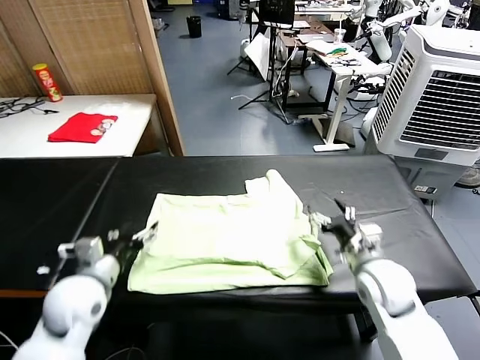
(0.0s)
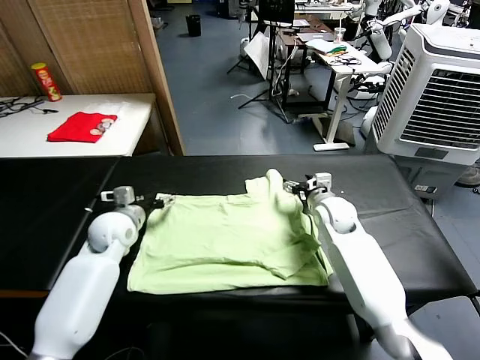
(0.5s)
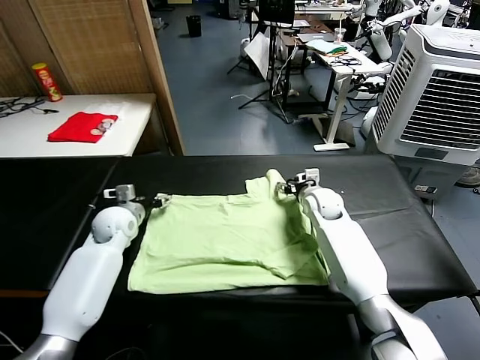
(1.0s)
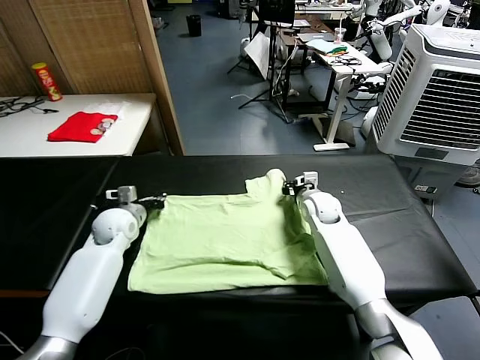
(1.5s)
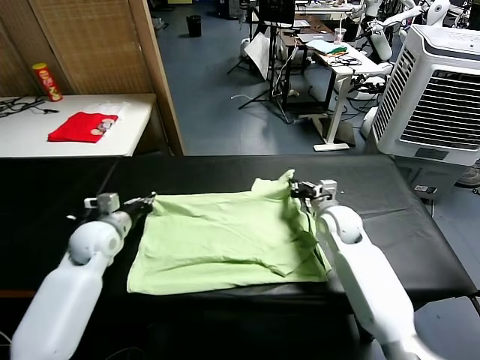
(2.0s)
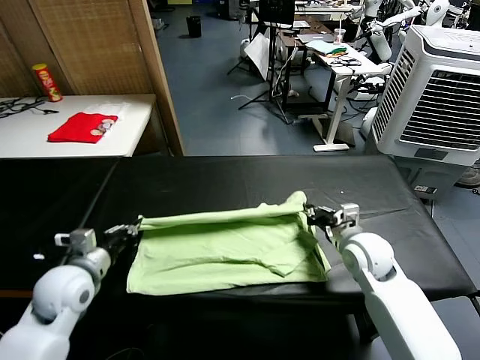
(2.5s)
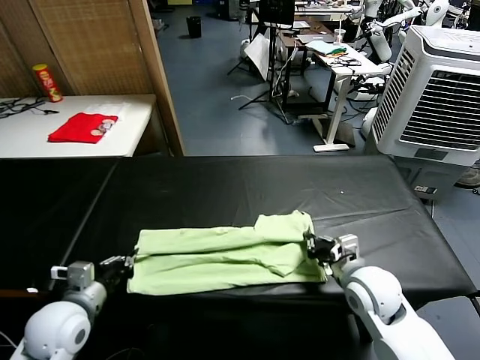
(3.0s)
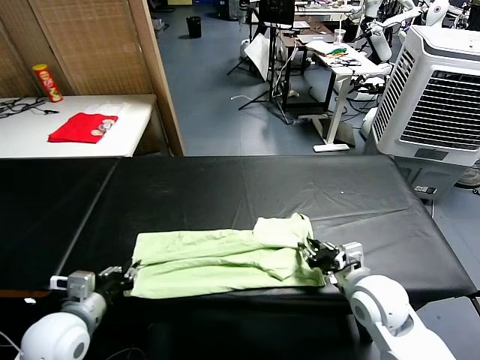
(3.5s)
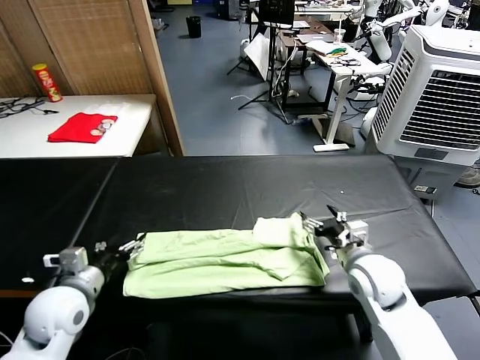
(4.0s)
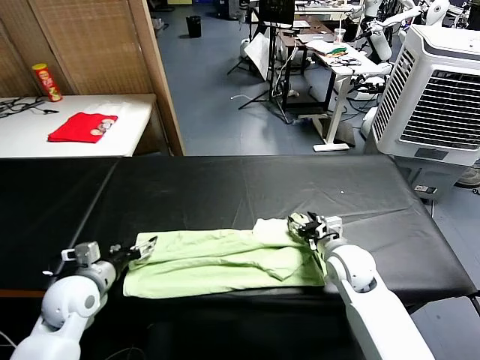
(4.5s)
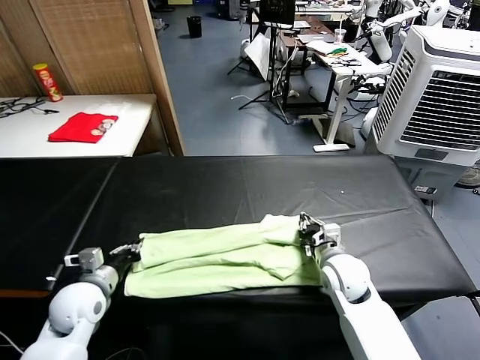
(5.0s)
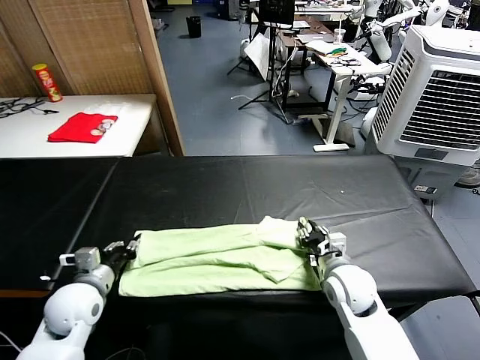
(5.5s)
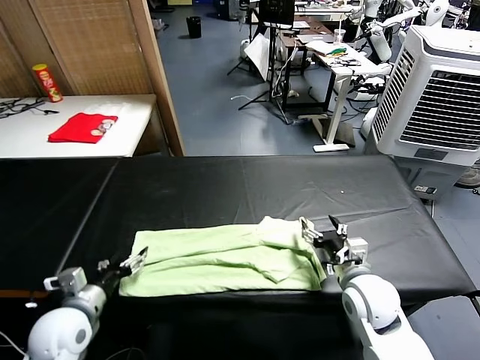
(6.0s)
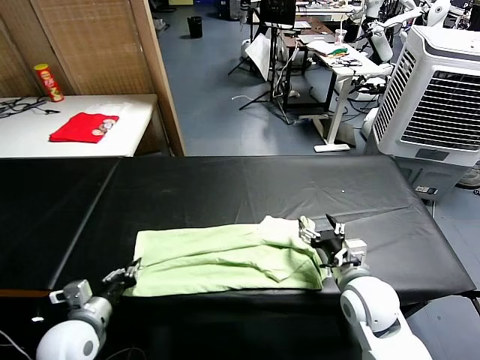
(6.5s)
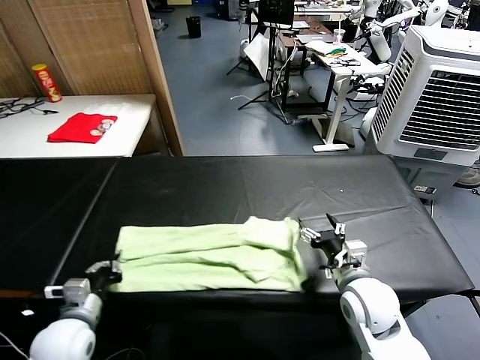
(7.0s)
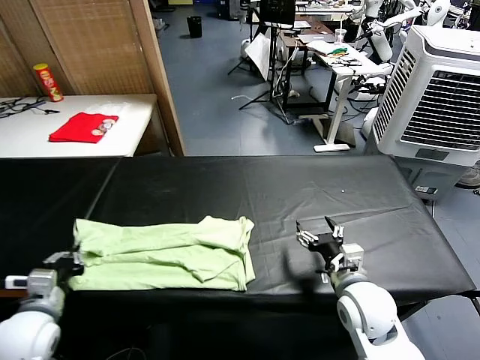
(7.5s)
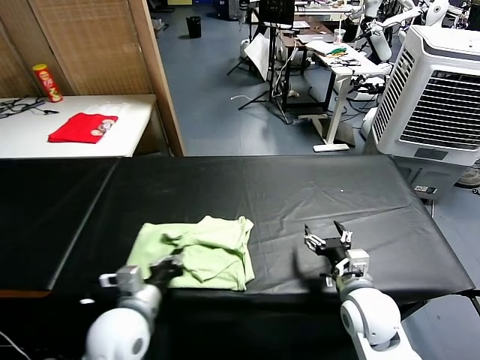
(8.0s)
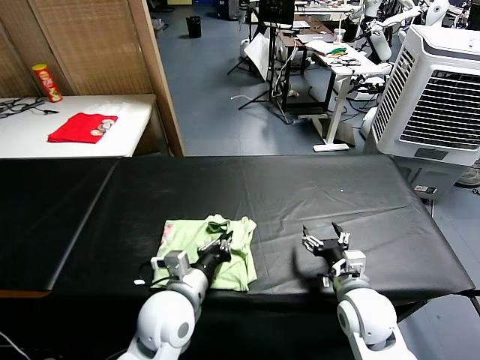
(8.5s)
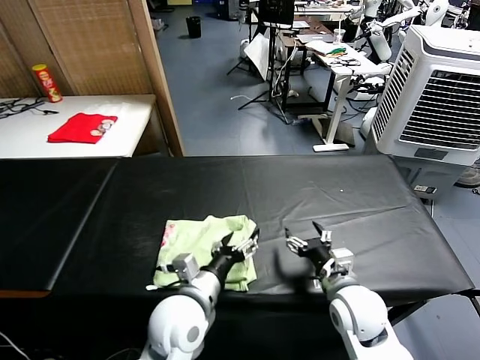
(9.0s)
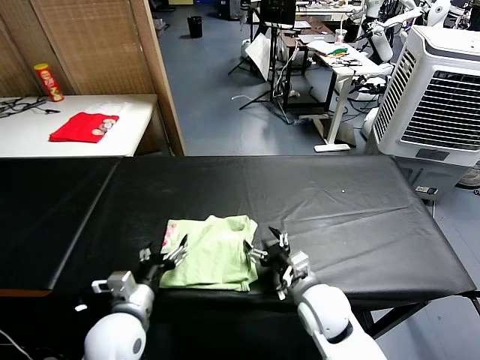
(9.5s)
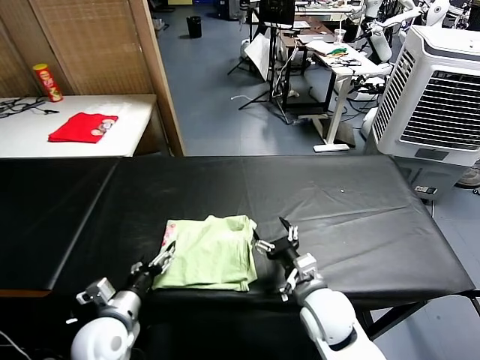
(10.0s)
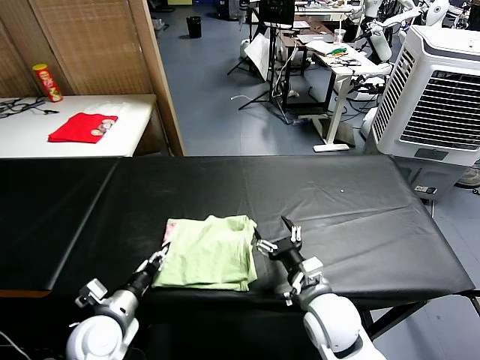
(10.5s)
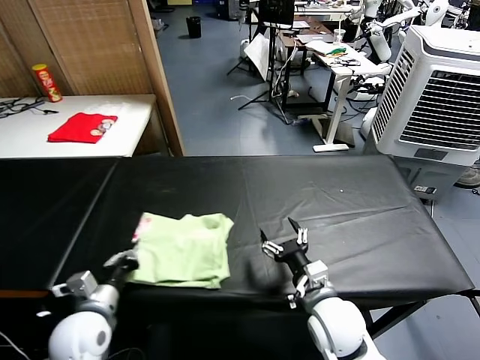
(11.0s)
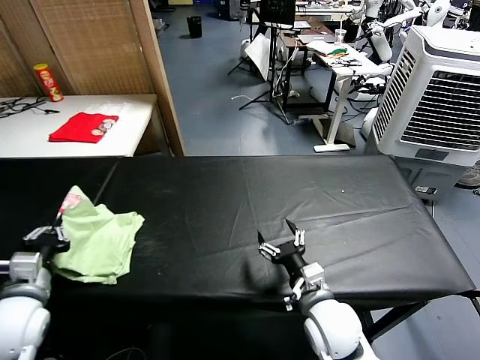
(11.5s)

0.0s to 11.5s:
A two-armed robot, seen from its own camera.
Task of the whole recording: fold and organize the clothes.
Step, 0.0s to 1.0s: use both grippers simultaneously to clamp the upper edge of the clothing fabric.
Step, 1.5s to 3.5s: use both grippers to drag the upper edge of the fabric backward and fold it over the lower edge.
Step, 4.0s to 6.5s: use the left gripper to clamp the left edge of the fabric.
Step, 7.0s to 9.0s: use the left gripper to drag the left edge of the fabric to the left and folds it over the right edge.
0.0s to 2.0s: The right gripper moves forward, about 5 cm, and closes its fingers. Meanwhile the left gripper is displaced forward by roughly 10 cm, and closes.
2.0s to 4.0s: Both grippers move backward, about 10 cm. The left gripper opens up. Meanwhile the right gripper opens.
4.0s to 6.0s: The left gripper closes, then opens again. Meanwhile the right gripper heads backward, covering some 5 cm, and closes and opens again.
6.0s to 7.5s: The left gripper changes place by roughly 5 cm, and closes up.
7.5s to 9.5s: The left gripper goes about 15 cm to the right, and opens its fingers. Meanwhile the right gripper shifts approximately 5 cm to the left.
9.5s to 11.5s: The left gripper goes some 15 cm to the left and upward, and closes its fingers.

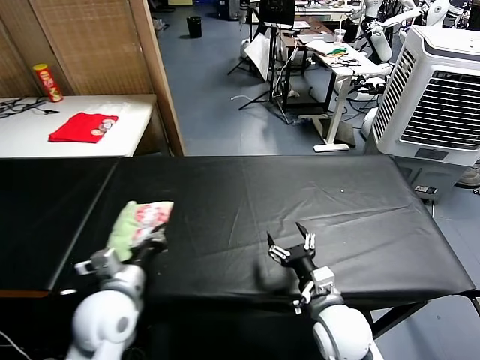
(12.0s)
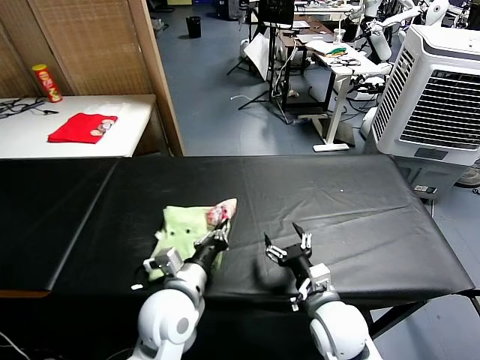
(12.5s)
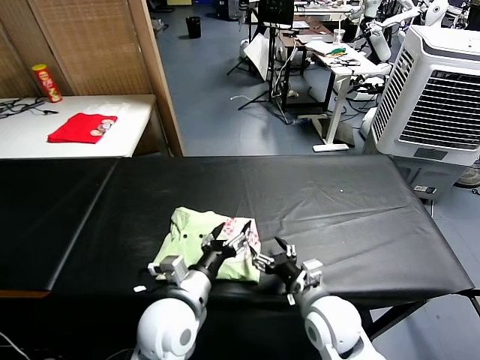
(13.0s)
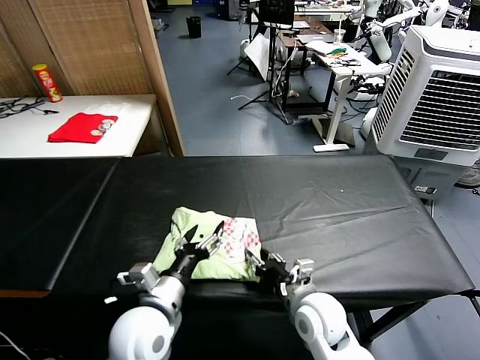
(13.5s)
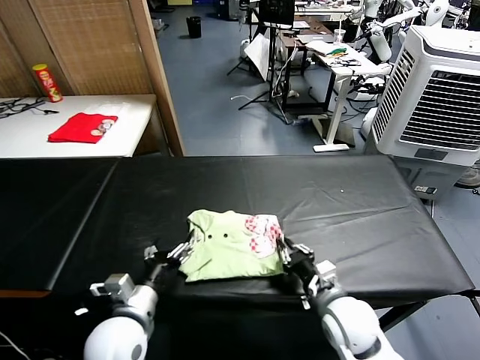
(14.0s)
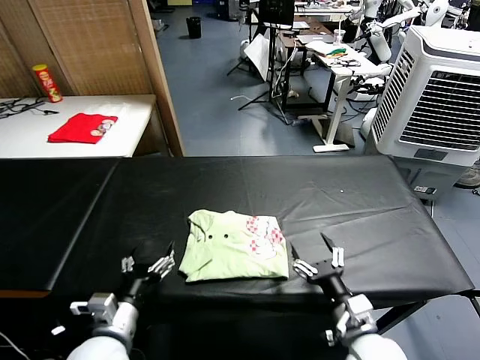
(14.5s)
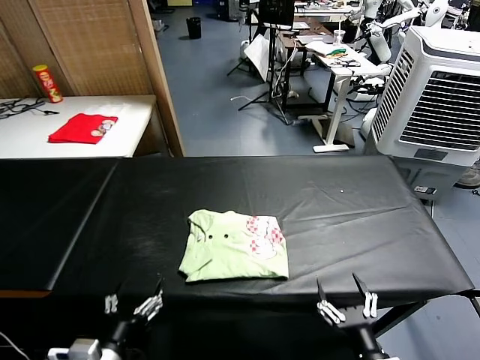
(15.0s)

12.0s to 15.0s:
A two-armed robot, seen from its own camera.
Task of the whole recording: fold and organize the clothes.
Step, 13.0s to 14.0s: Drag the clothes to the center of the table.
12.0s to 13.5s: The left gripper shifts some 10 cm to the right, and opens its fingers.
13.5s to 15.0s: The right gripper moves backward and to the right, roughly 20 cm, and closes, then opens again; the left gripper goes approximately 15 cm backward and to the left.

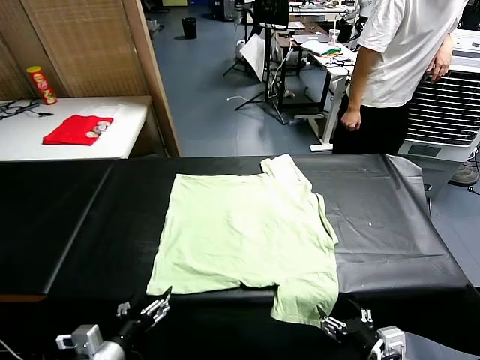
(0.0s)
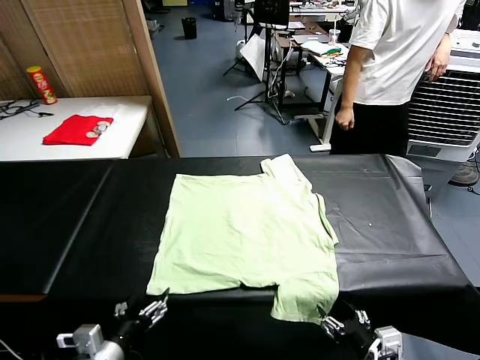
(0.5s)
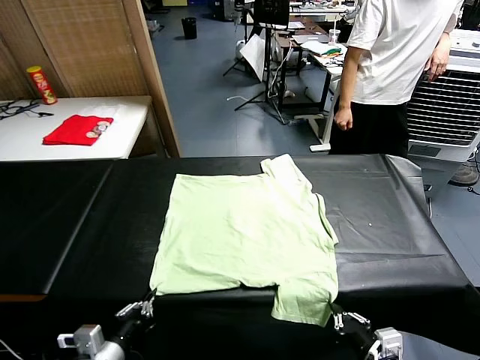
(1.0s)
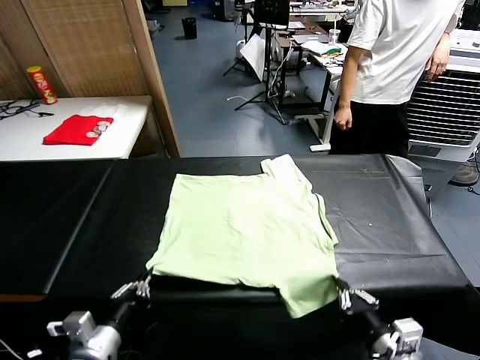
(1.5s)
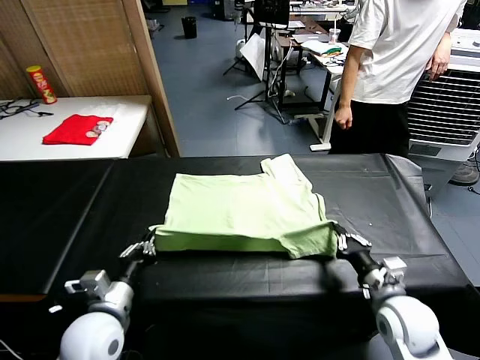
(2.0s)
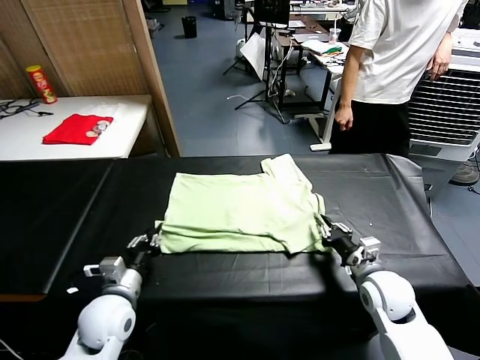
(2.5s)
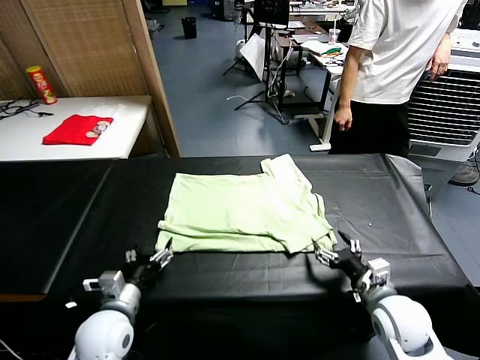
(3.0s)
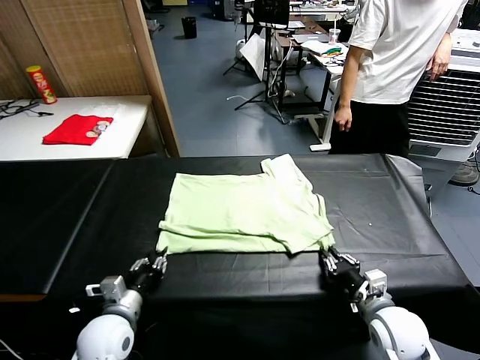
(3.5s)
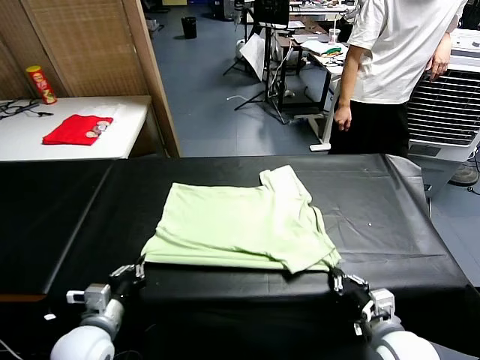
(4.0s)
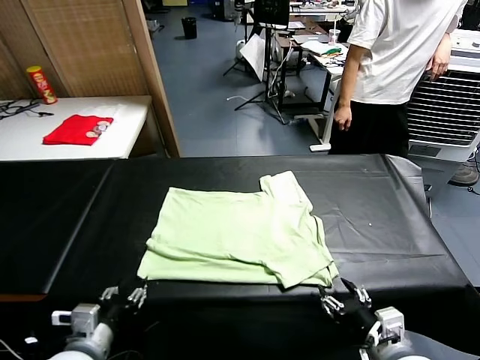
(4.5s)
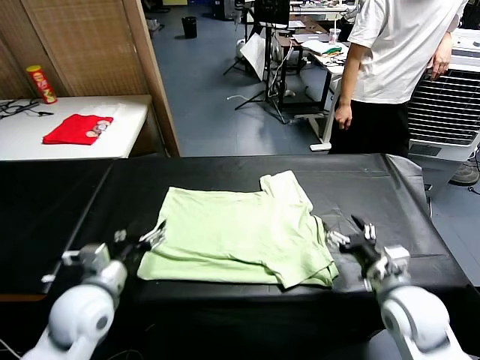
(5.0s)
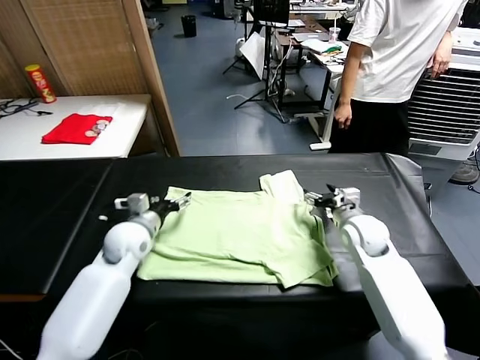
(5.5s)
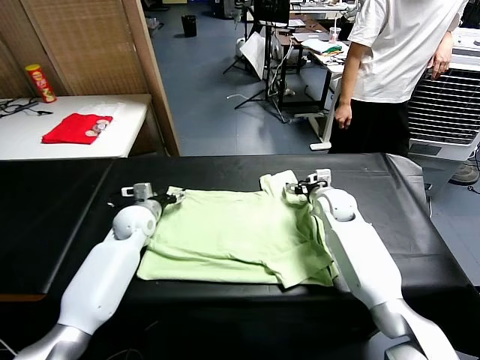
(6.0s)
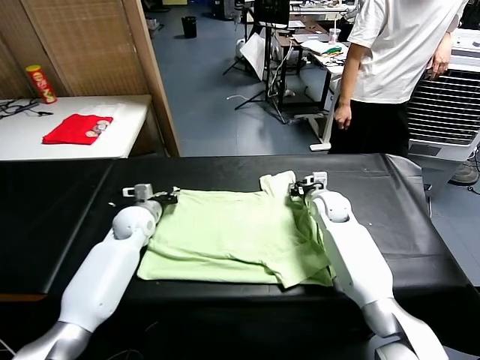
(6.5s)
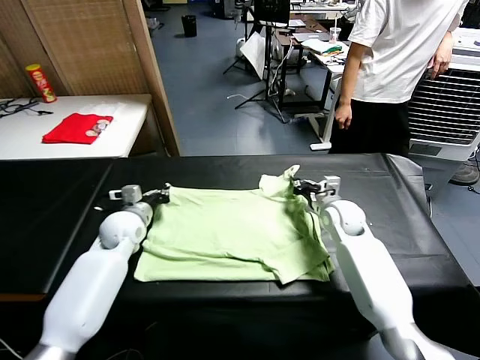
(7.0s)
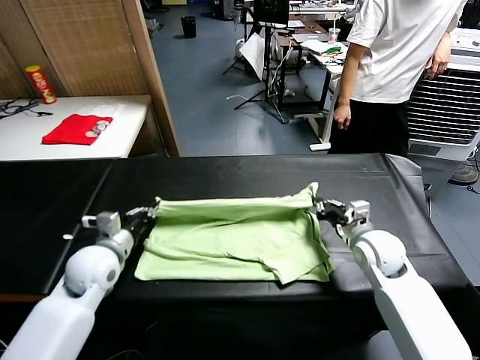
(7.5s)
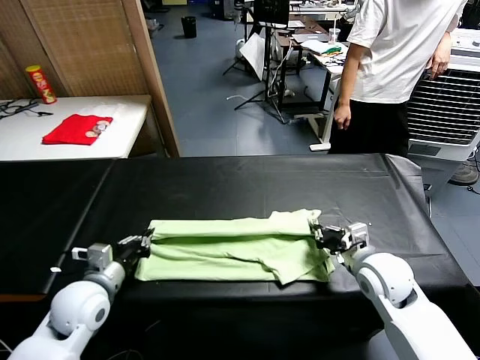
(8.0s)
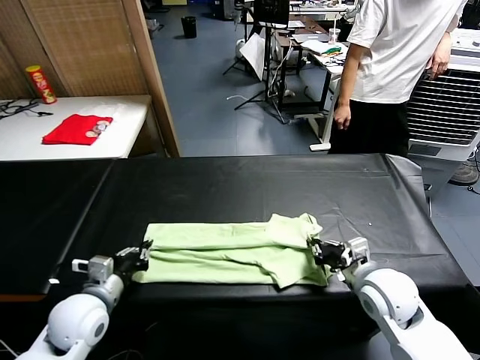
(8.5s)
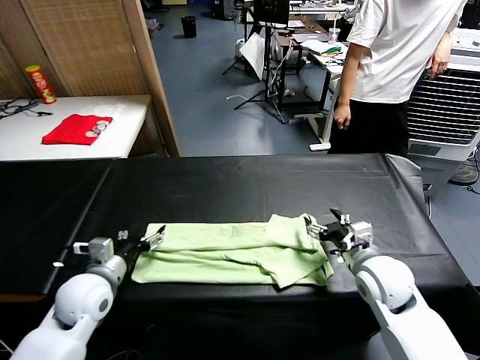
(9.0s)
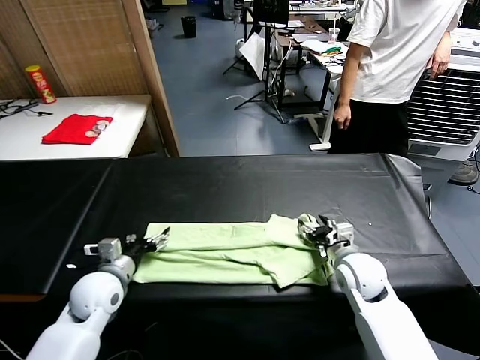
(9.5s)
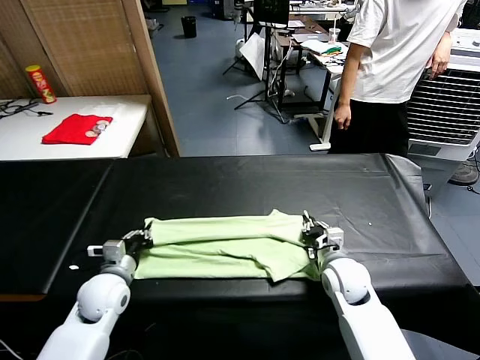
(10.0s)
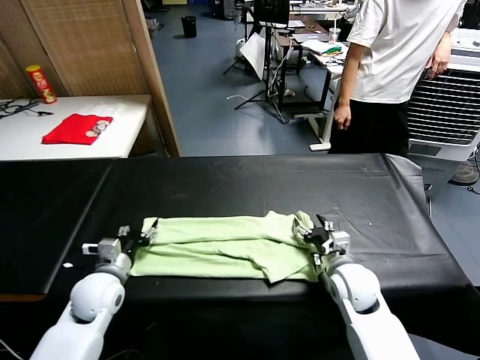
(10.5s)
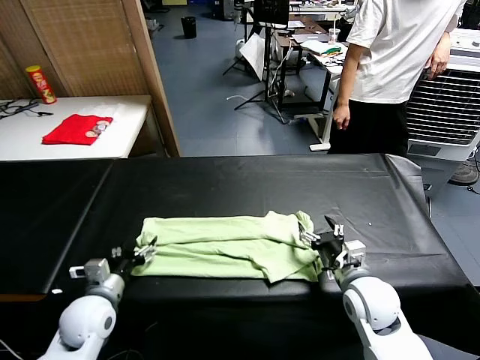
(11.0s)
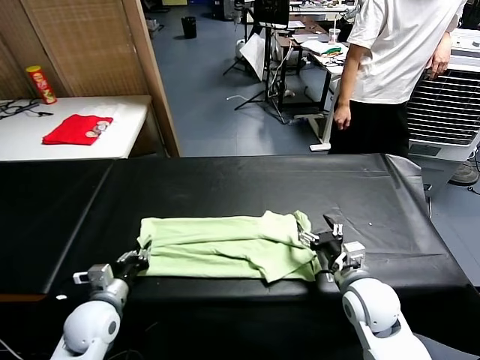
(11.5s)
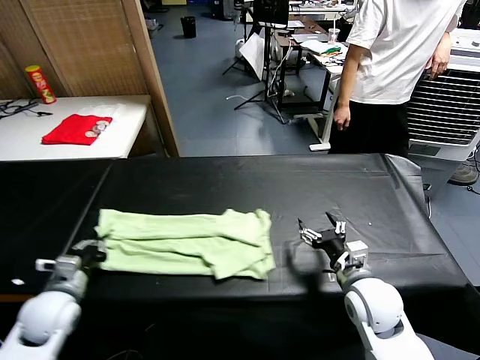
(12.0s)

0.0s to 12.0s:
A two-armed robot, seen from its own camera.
Task of the whole recording: fold and organize the clothes.
Step, 0.0s to 0.5s: use both grippers simultaneously to clamp the lower edge of the clothing fabric.
Step, 1.5s to 2.5s: use both grippers to drag the lower edge of the fabric forward and fold it over the upper edge.
Step, 3.0s to 4.5s: Drag the clothes downward with both gripper.
Step, 5.0s to 6.5s: use both grippers simultaneously to clamp the upper edge of the clothing fabric.
Step, 7.0s to 8.5s: use both grippers to drag the upper edge of the fabric backward and fold it over the lower edge.
Step, 9.0s to 11.5s: use the left gripper to clamp the left edge of the fabric.
2.0s to 4.0s: The left gripper travels backward by some 5 cm, and opens, then closes once more. Meanwhile the right gripper is displaced backward by about 15 cm, and opens and closes again.
4.0s to 6.0s: The grippers both shift forward by about 35 cm. The left gripper opens; the right gripper opens its fingers.
6.0s to 8.0s: The grippers both shift backward by some 20 cm. The left gripper closes. Meanwhile the right gripper closes up.
8.0s to 10.0s: The right gripper goes about 10 cm downward and to the left, and opens, then closes again. Meanwhile the left gripper goes roughly 5 cm downward, and opens, then closes once more.
10.0s to 12.0s: The left gripper heads to the left, covering about 10 cm, and opens, then closes again. Meanwhile the right gripper goes roughly 10 cm backward and upward, and opens its fingers.
